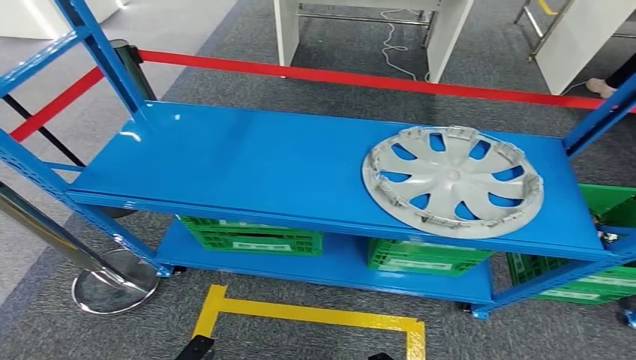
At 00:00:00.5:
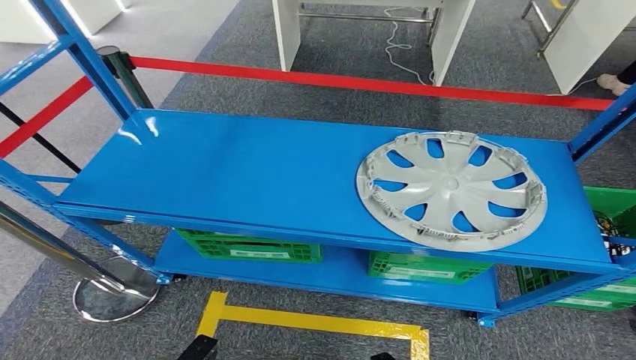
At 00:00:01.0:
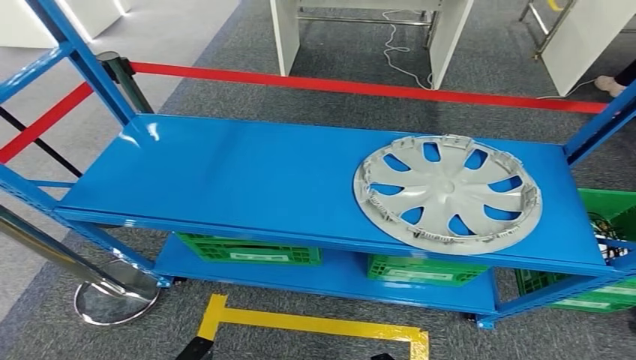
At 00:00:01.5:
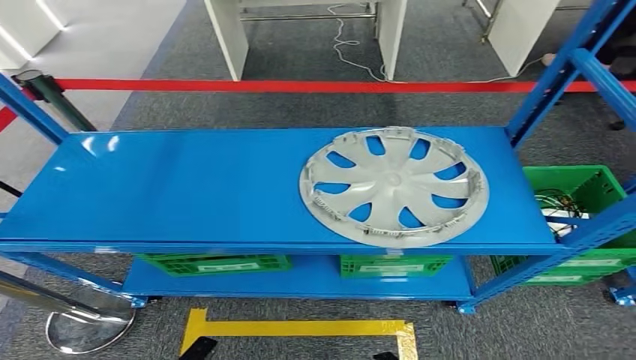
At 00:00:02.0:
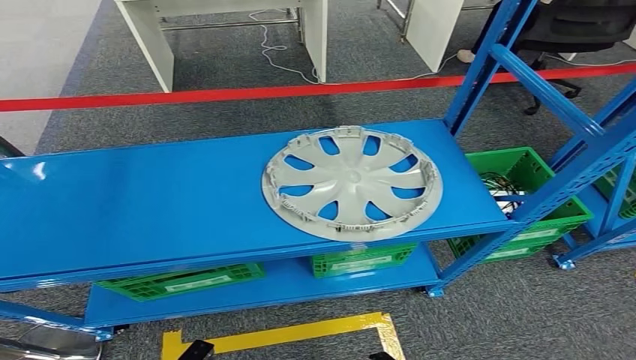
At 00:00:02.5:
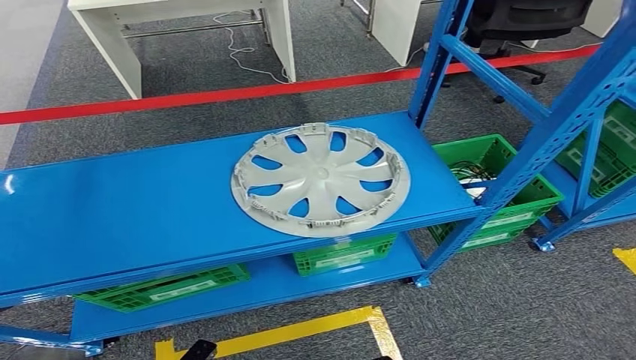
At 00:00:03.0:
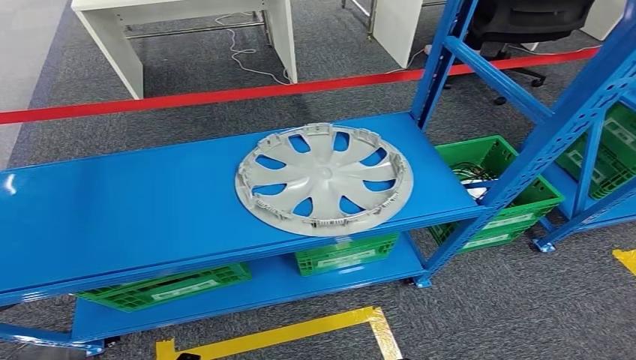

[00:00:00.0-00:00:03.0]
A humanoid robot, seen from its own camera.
Step, 00:00:00.0 to 00:00:03.0: Return to the initial position at the workbench.
